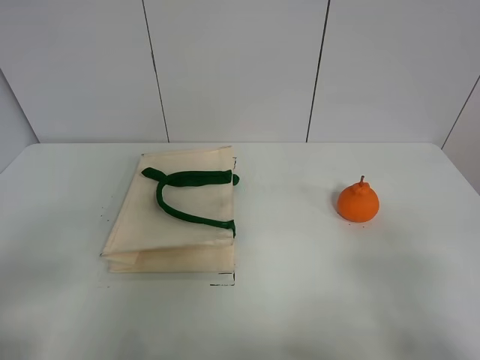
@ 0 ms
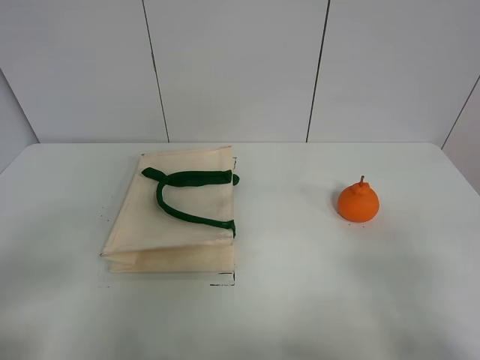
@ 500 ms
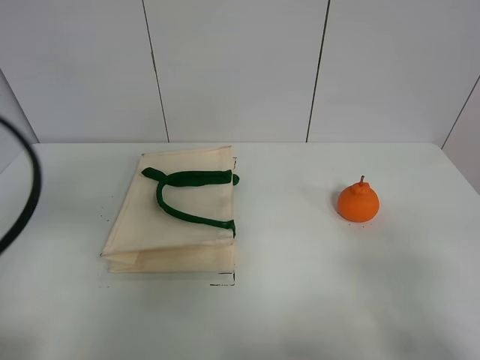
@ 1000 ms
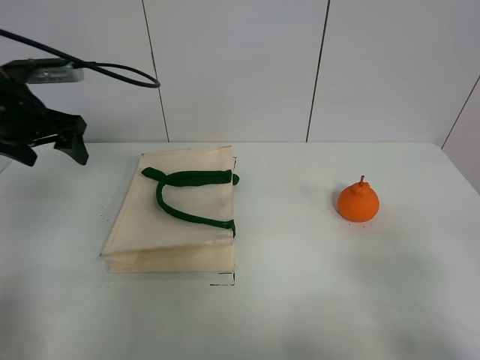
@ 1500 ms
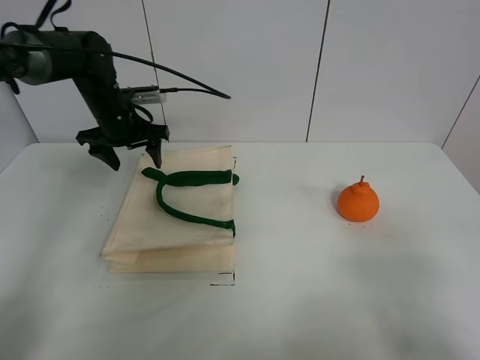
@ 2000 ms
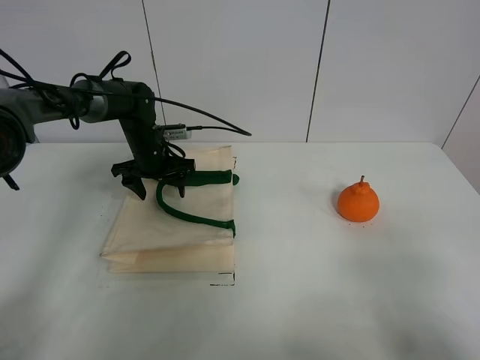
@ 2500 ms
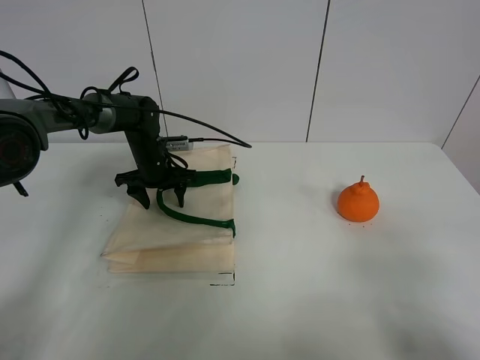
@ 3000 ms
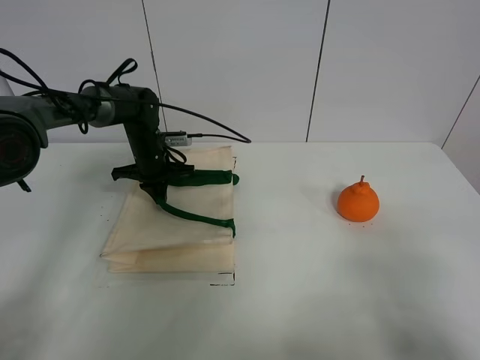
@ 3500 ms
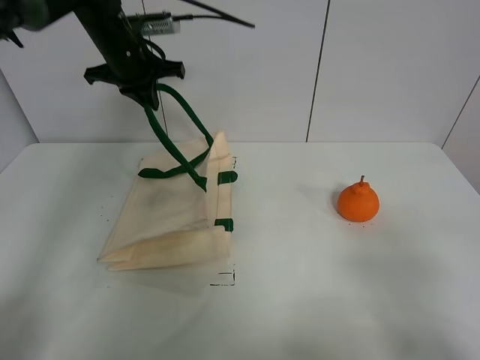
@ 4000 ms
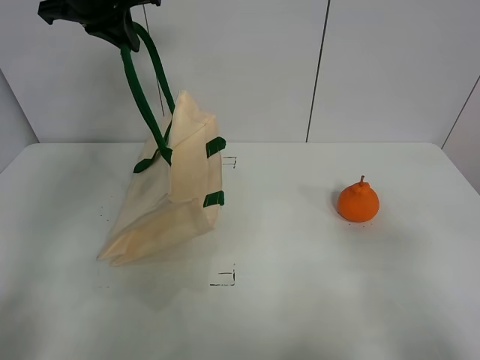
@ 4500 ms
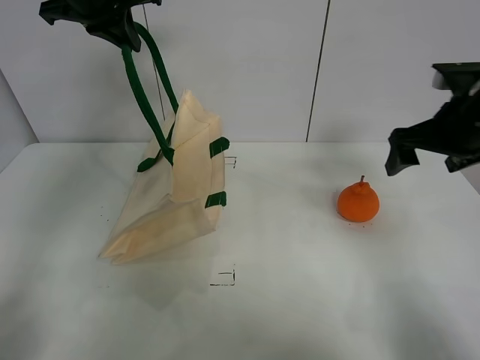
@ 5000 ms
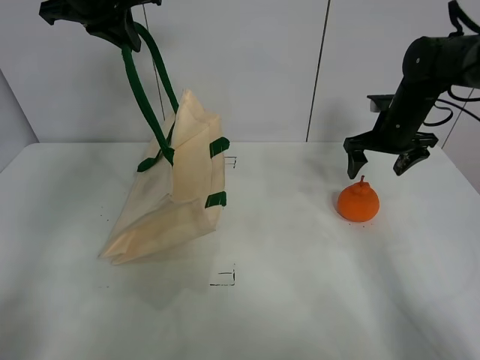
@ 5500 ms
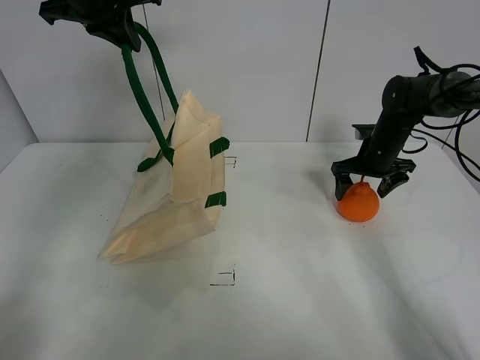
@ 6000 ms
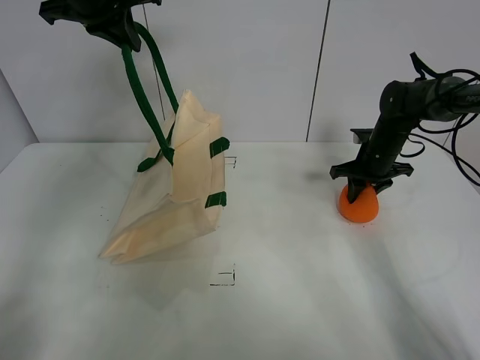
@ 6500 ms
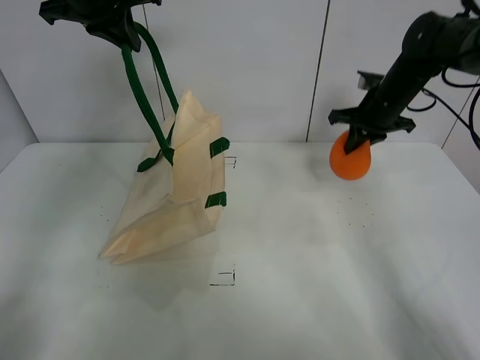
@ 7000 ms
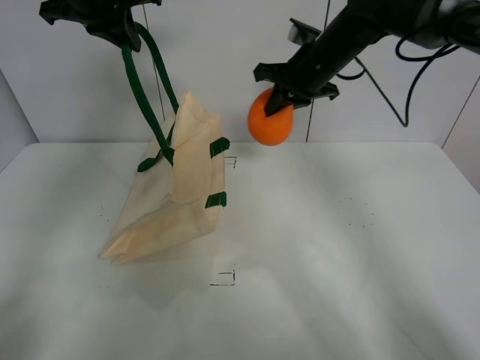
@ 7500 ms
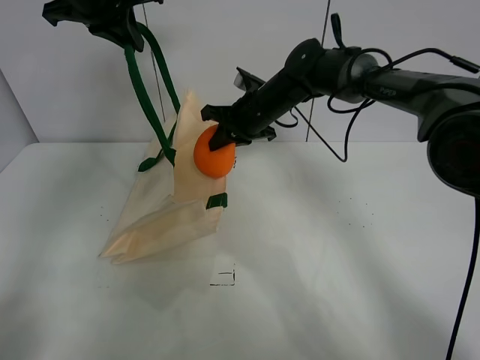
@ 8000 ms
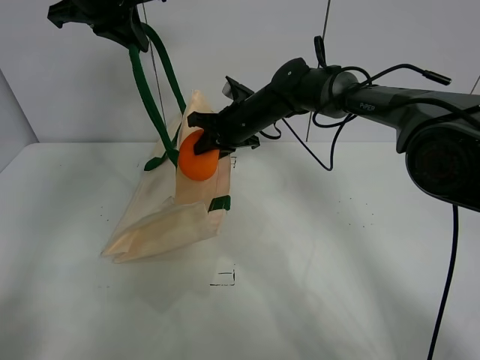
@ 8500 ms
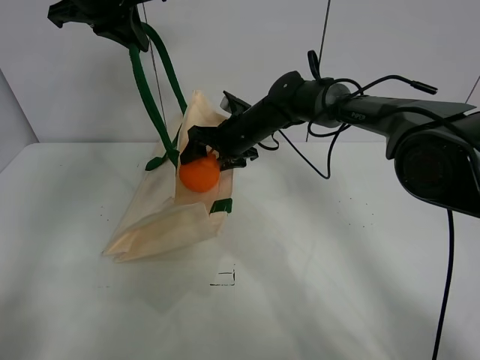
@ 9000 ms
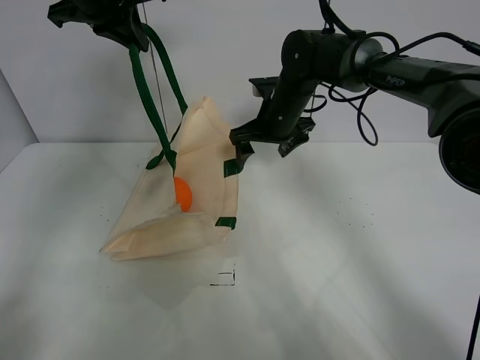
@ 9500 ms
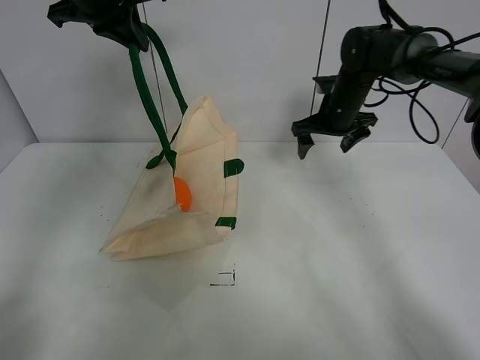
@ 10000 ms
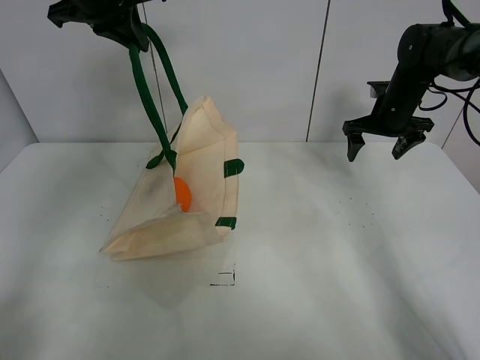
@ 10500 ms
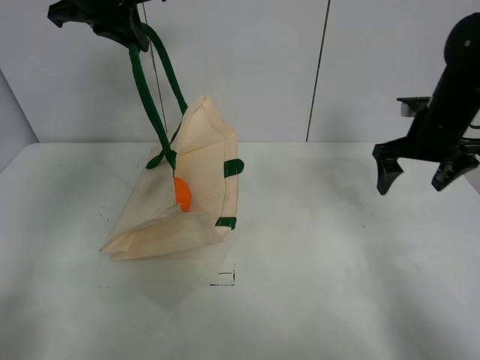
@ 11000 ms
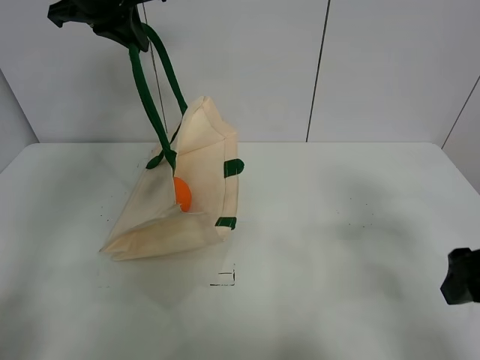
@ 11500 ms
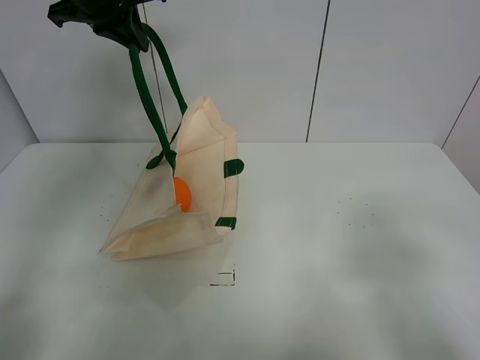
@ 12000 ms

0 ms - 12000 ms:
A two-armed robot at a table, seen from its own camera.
Task of the whole recording: open the white linen bag and put the orange in the bag.
Step, 0 ms - 4000 ms: Lift the handbag with left gripper.
Step, 4500 ms - 6500 ms: Grasp the orange with right gripper.
Step, 7000 ms - 9000 ms: Place the orange in the handbag with right gripper.
0 ms - 2000 ms: The left gripper travels forward by roughly 50 cm.
2000 ms - 4000 ms: The left gripper heads upward, covering about 10 cm, and closes up.
4000 ms - 6000 ms: The left gripper heads upward and backward, covering roughly 10 cm. Meanwhile the right gripper moves forward, about 50 cm.
6000 ms - 8000 ms: The right gripper moves to the left, roughly 20 cm, and closes up.
8000 ms - 10000 ms: The right gripper is displaced to the right by approximately 15 cm, and opens up.
10000 ms - 12000 ms: The right gripper travels backward by roughly 40 cm.

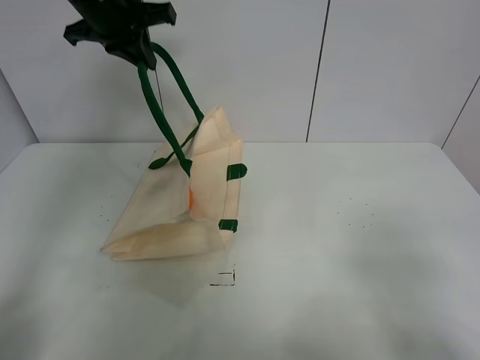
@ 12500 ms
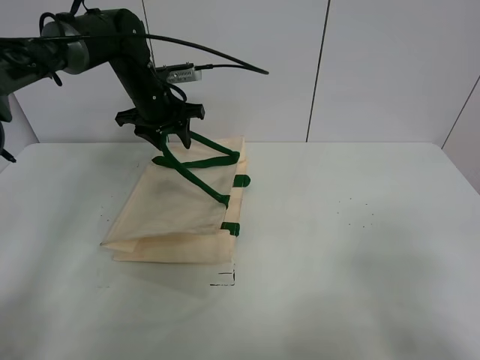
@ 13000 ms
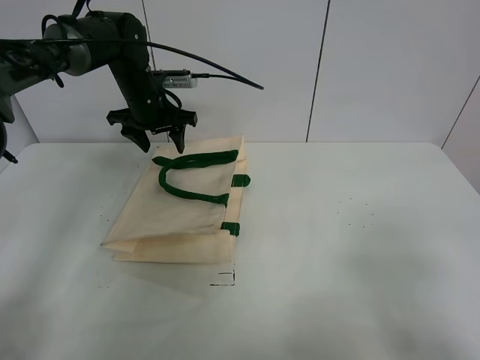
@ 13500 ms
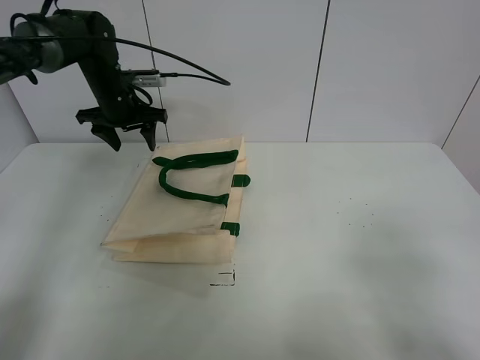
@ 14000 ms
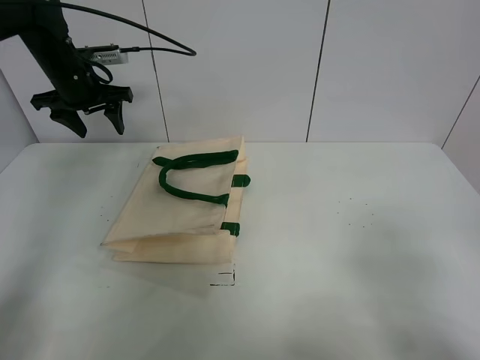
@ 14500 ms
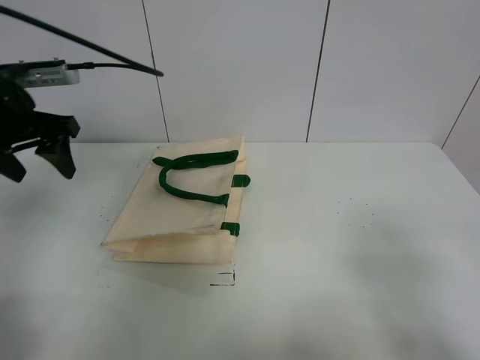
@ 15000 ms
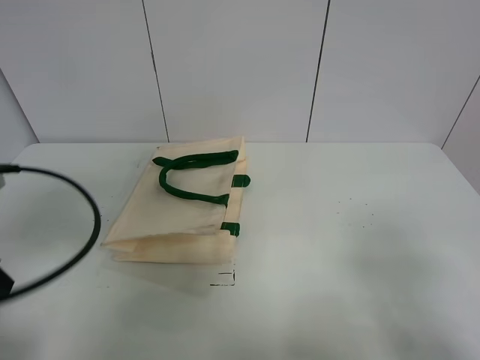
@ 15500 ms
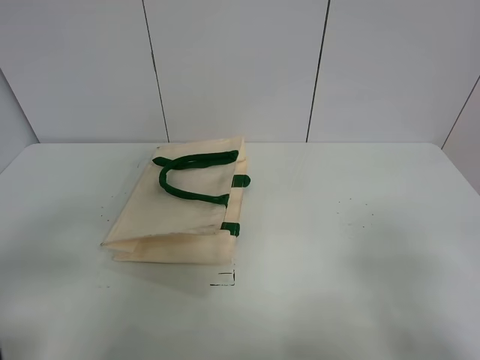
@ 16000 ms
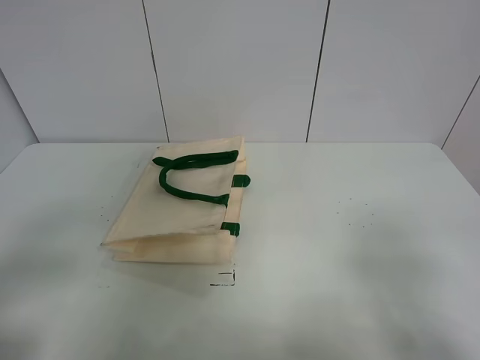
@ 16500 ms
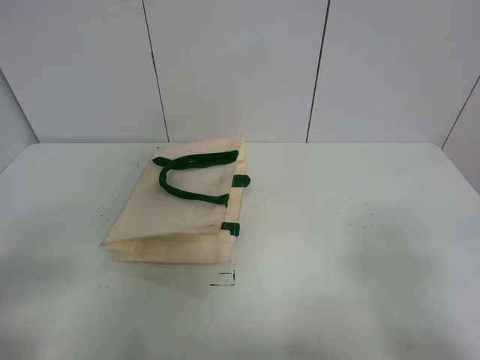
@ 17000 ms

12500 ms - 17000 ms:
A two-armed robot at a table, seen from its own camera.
Task of the whole recording: open the white linen bag and put the orange in the bag.
12500 ms - 14500 ms: The left gripper travels to the left and downward by about 15 cm, and opens up.
14500 ms - 17000 ms: The left gripper shifts about 50 cm backward.
